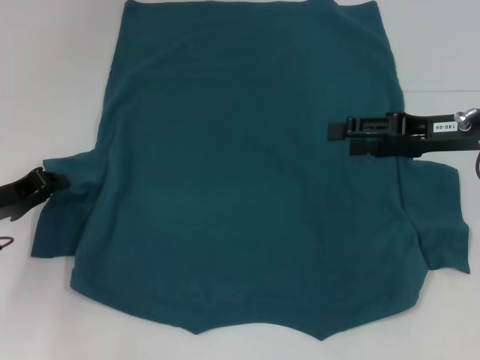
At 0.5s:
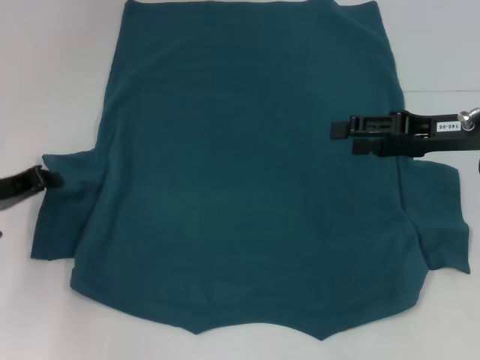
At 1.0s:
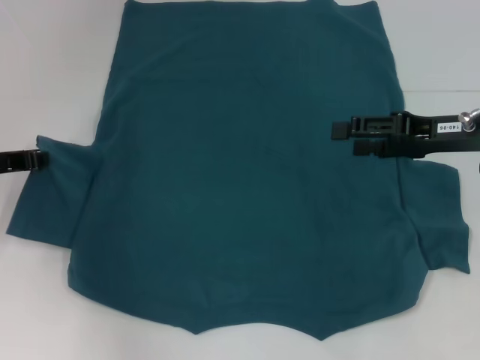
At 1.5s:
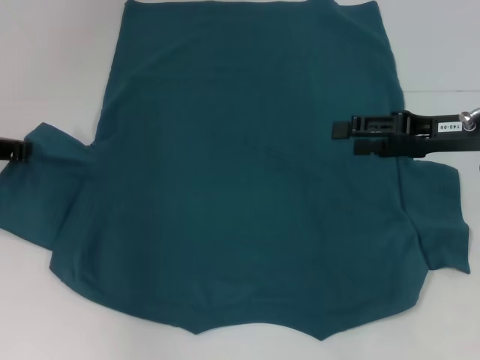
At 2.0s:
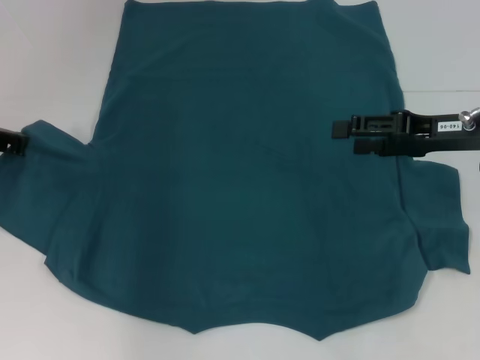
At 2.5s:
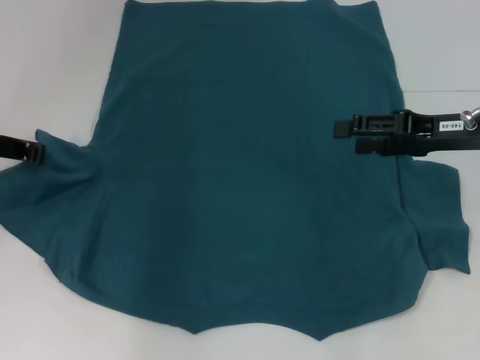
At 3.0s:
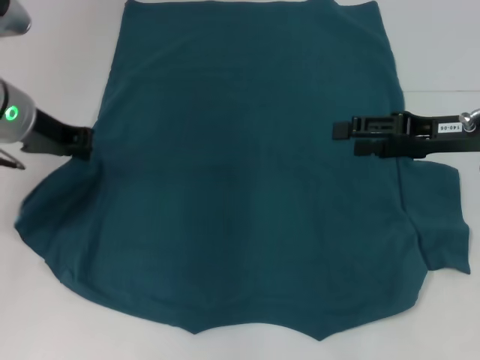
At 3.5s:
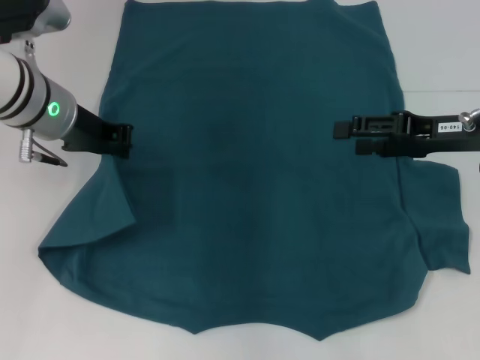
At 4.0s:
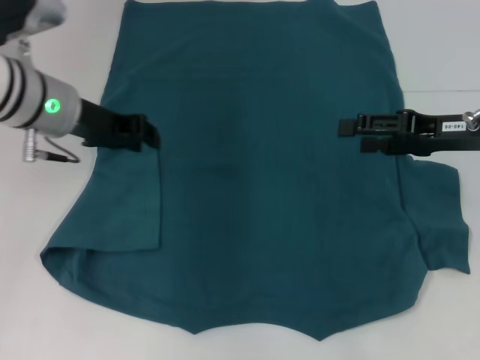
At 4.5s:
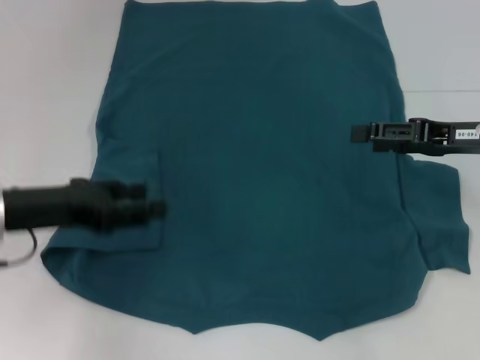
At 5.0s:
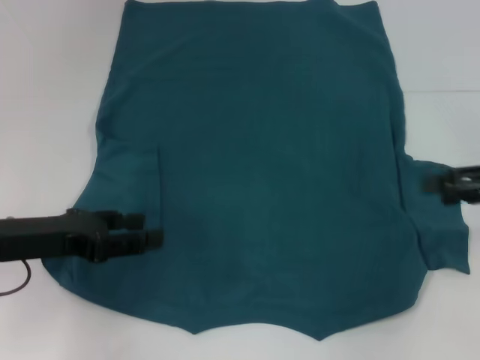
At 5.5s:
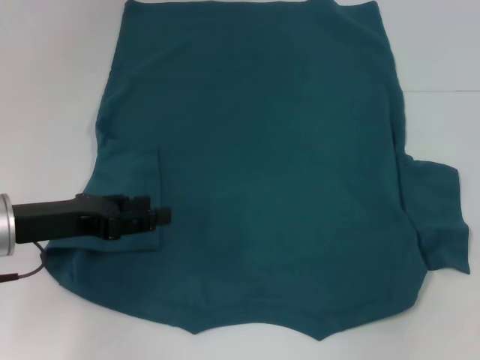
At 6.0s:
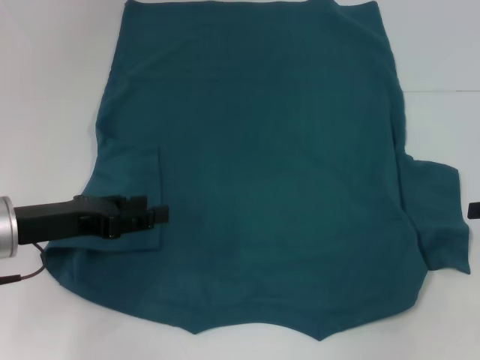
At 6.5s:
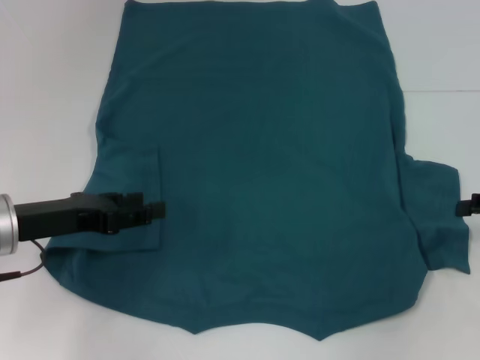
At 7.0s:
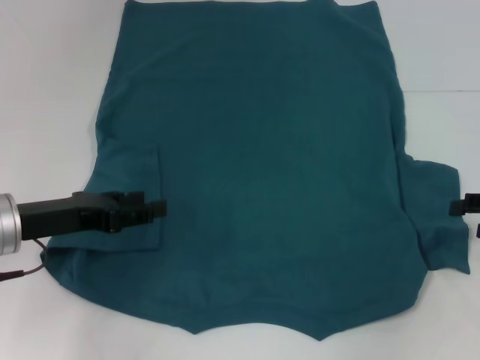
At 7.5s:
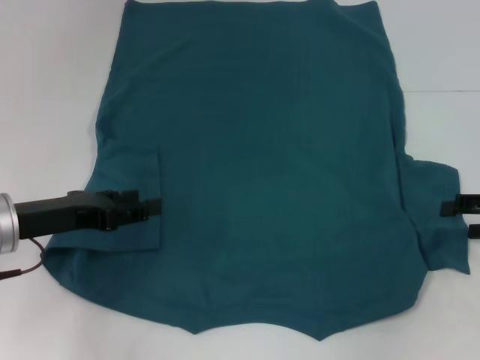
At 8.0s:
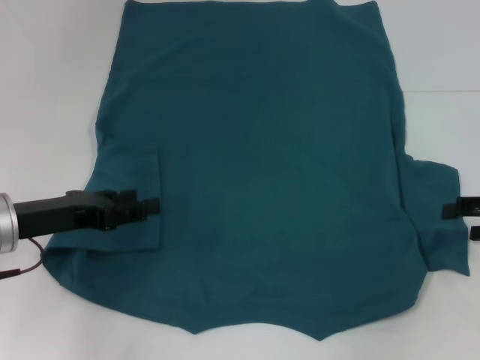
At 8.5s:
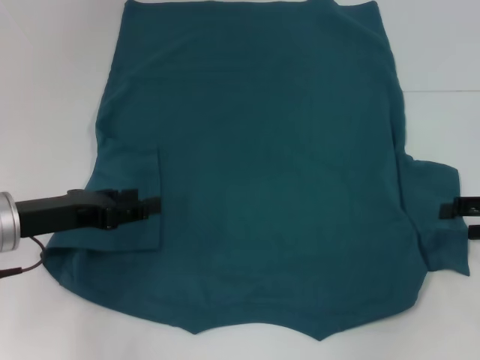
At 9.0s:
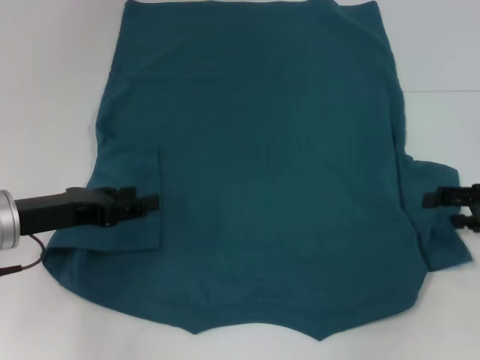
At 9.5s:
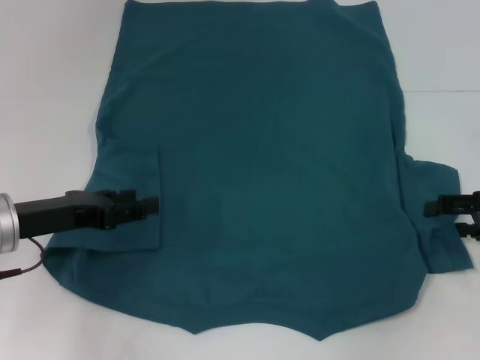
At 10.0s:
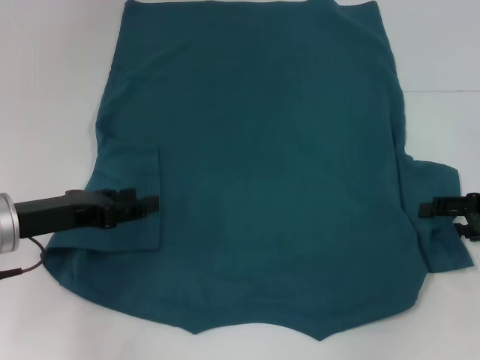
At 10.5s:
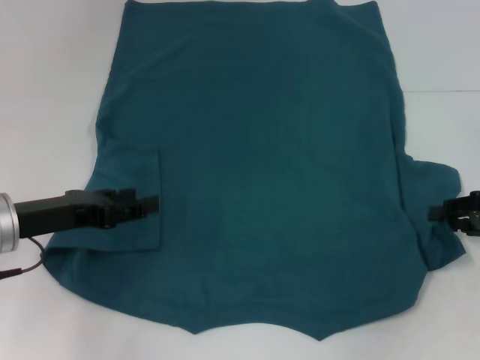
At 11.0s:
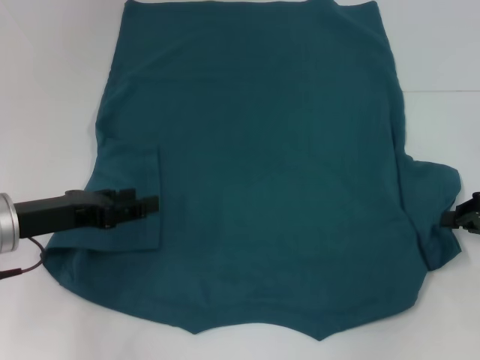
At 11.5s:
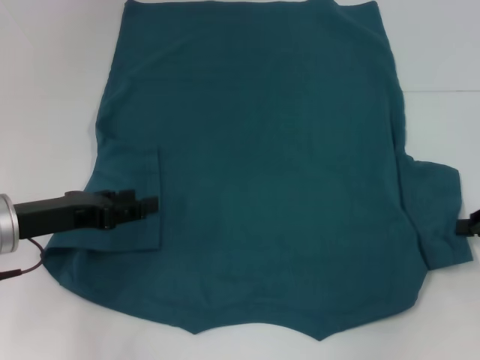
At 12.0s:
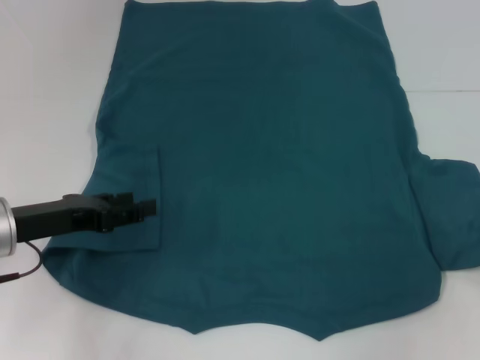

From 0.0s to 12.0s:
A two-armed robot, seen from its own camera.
Step, from 0.0s to 3.5s: Fold the bottom left sleeve with your left hand.
From 0.0s to 2.0s: The left gripper heads upward and forward, covering about 10 cm.
From 2.0s to 4.0s: The left gripper heads to the right, covering about 10 cm.
From 4.0s to 6.0s: The right gripper travels to the right and backward by roughly 15 cm. The left gripper heads backward, downward and to the left, covering about 15 cm, and opens its fingers.
From 6.0s to 10.0s: The grippers move only a little.
From 10.0s to 12.0s: The right gripper shifts some 5 cm to the right, and closes its fingers.

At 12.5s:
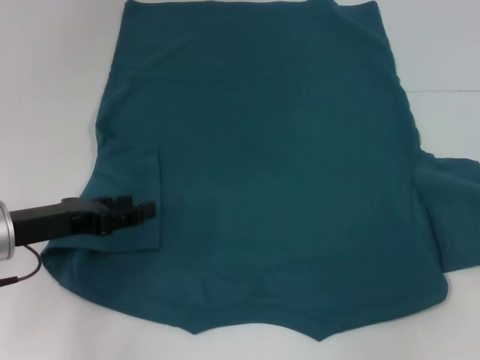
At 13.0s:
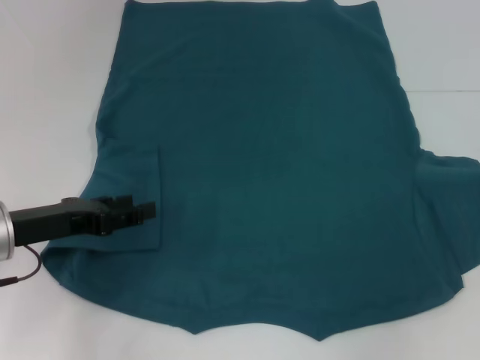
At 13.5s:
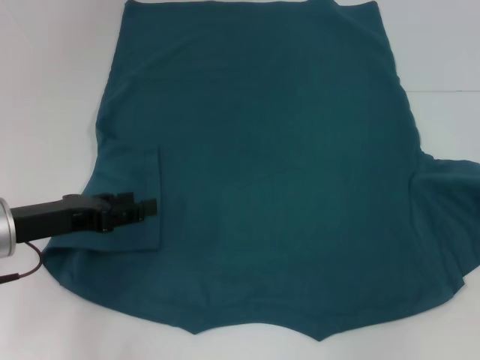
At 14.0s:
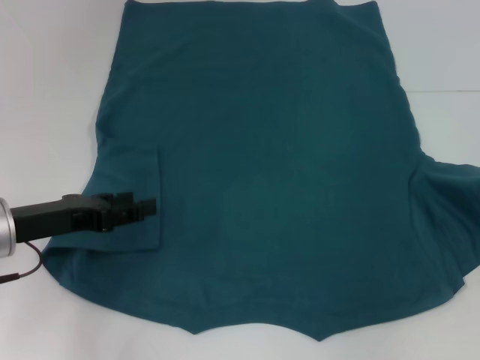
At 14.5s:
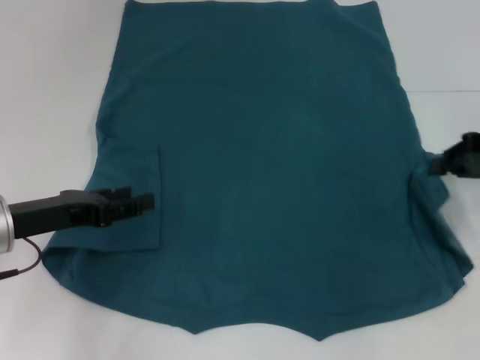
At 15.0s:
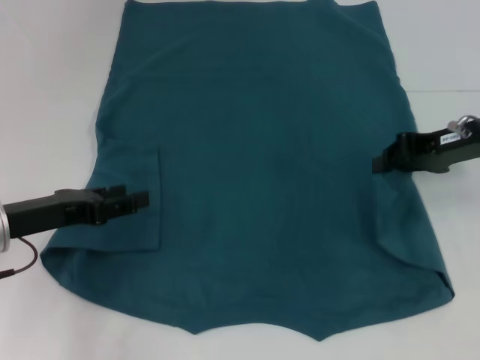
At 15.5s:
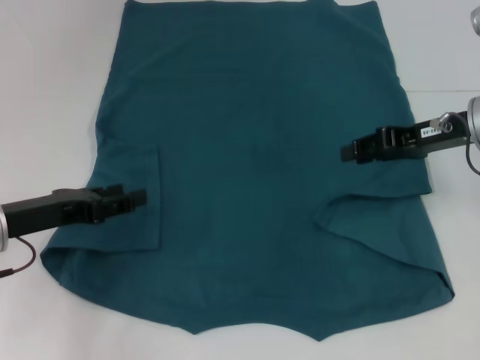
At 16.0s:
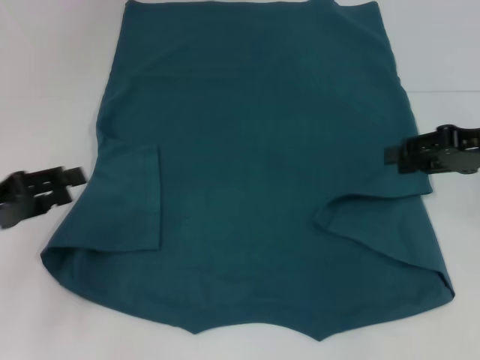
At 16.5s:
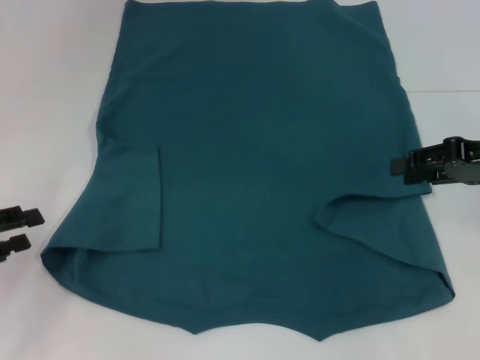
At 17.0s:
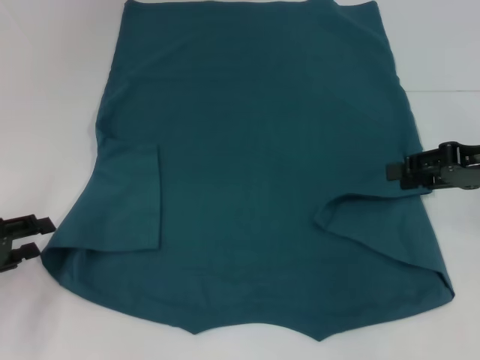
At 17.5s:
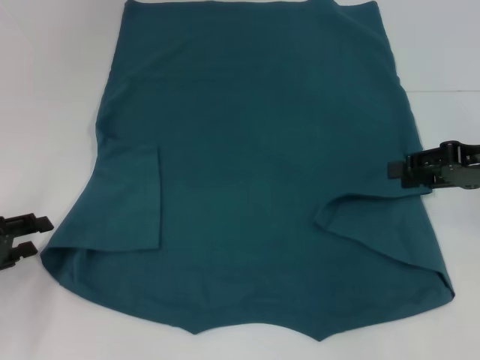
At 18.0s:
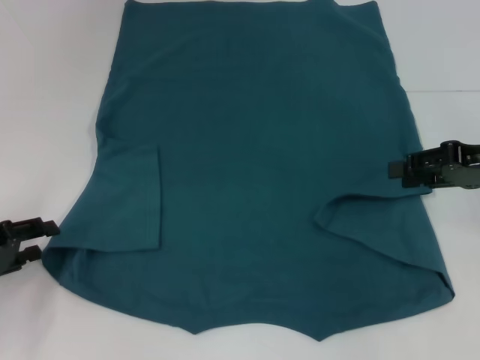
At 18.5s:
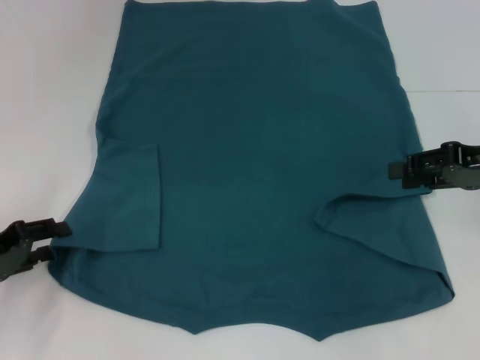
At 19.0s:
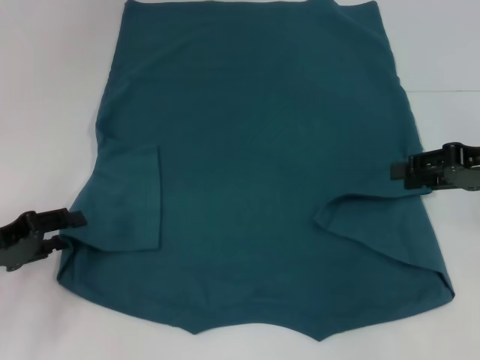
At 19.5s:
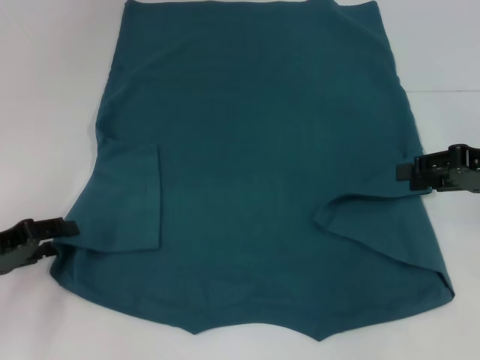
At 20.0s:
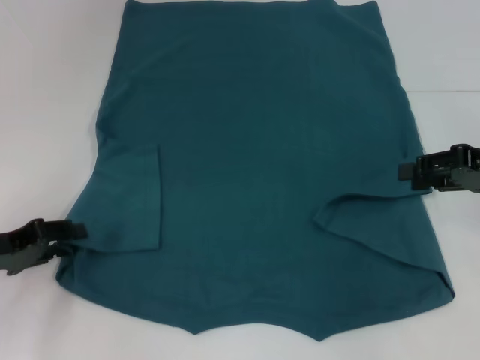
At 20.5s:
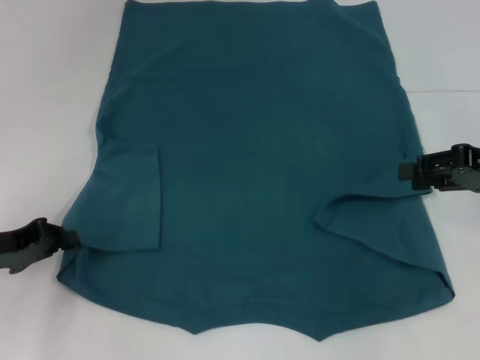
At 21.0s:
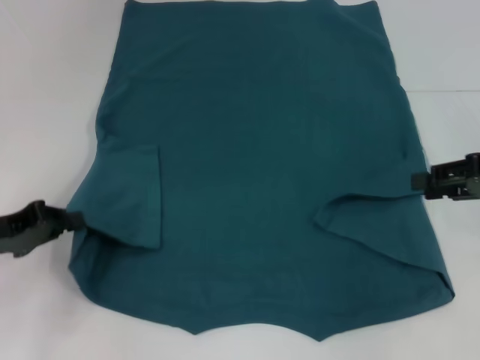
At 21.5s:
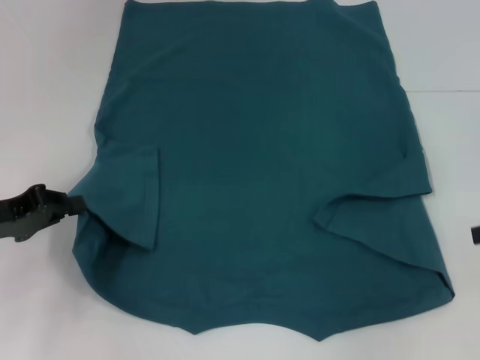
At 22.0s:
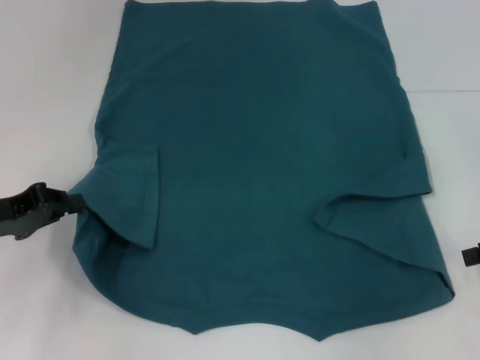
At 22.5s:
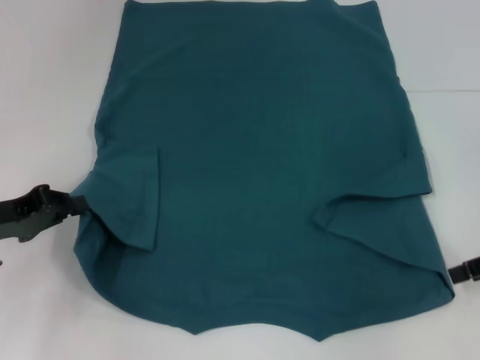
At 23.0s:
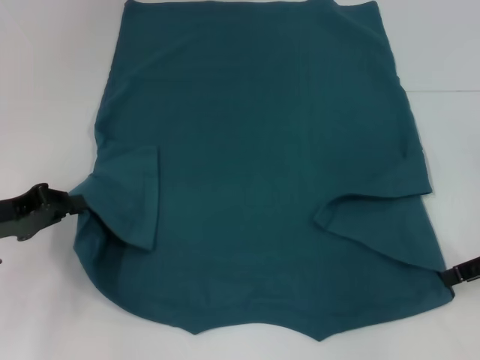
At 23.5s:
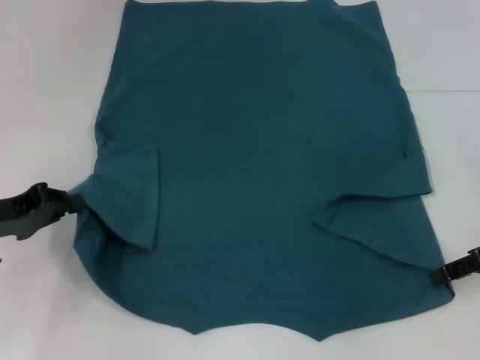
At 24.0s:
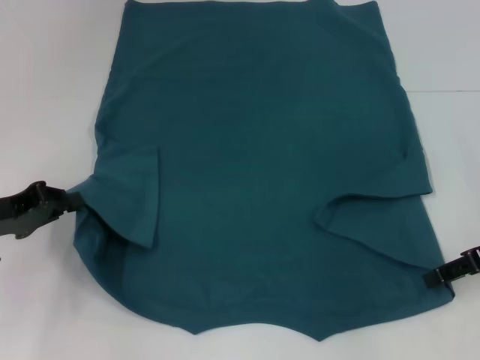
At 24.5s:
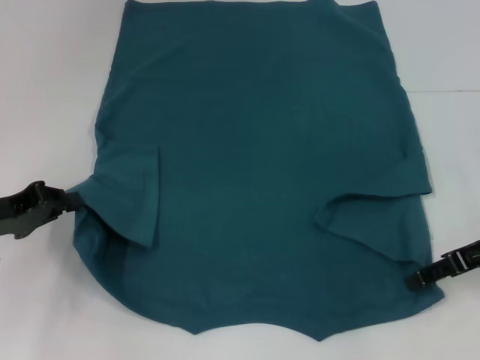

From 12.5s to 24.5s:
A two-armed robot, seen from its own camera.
Step, from 12.5s to 15.5s: Fold the bottom right sleeve to the right.
Step, from 16.0s to 20.5s: Grab the bottom left corner with your left hand.
From 12.5s to 14.5s: The right gripper heads to the left, covering roughly 10 cm.
From 14.5s to 16.5s: The right gripper reaches roughly 10 cm to the left, then returns, and opens its fingers. Meanwhile the left gripper travels to the left and backward by approximately 10 cm.
From 16.5s to 18.5s: The left gripper changes place by roughly 5 cm.
From 18.5s to 20.5s: The left gripper closes.
From 20.5s to 22.5s: The right gripper moves some 5 cm.
From 22.5s to 24.5s: The right gripper moves to the left, approximately 5 cm.

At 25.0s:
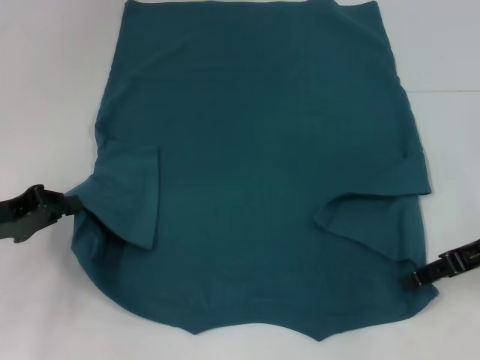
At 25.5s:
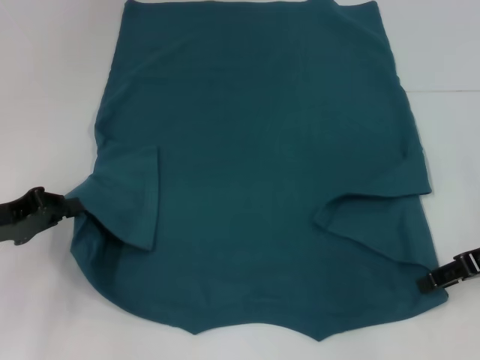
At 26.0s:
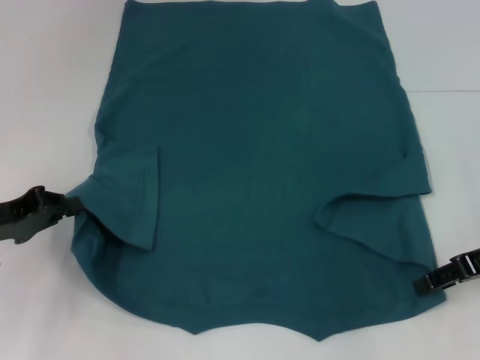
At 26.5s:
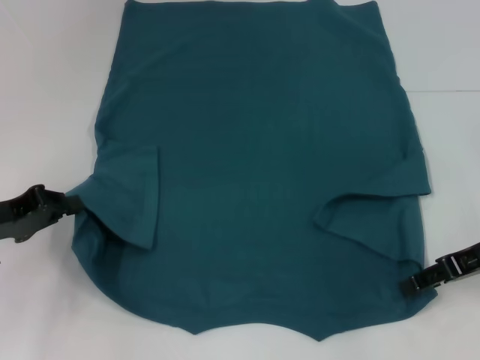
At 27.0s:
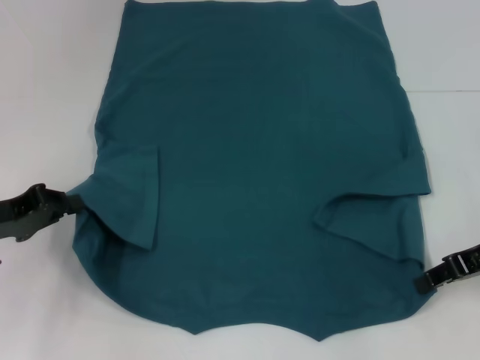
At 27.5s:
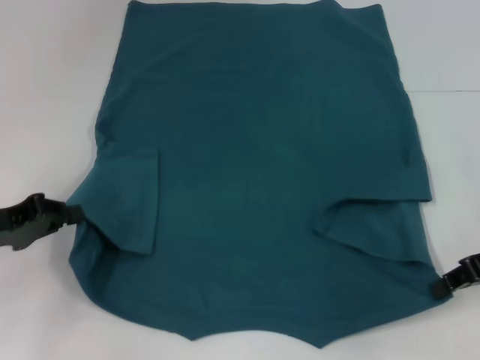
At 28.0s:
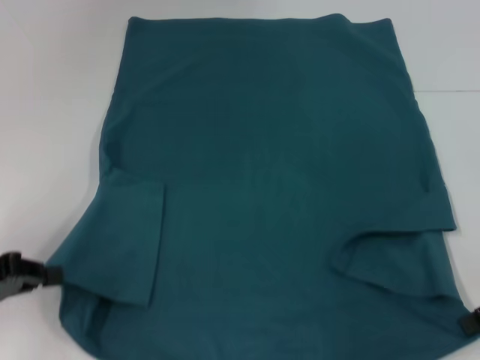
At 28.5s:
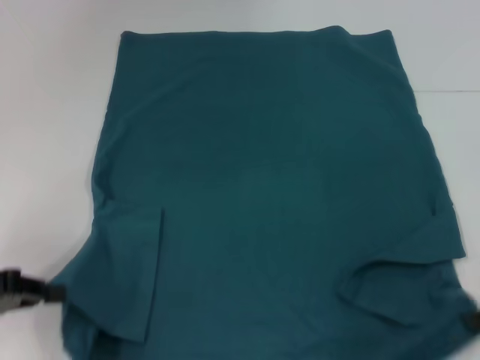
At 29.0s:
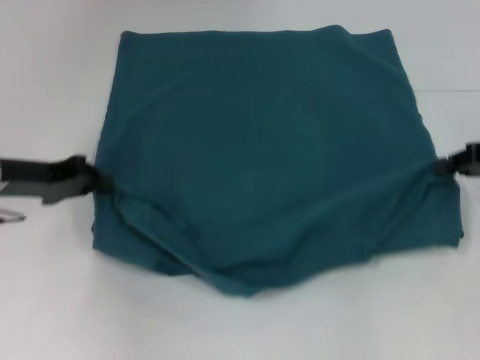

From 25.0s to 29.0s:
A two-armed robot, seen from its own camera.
Step, from 25.0s to 27.0s: Grab the bottom right corner with your right hand.
From 25.0s to 27.0s: The grippers stay close to where they were, moving slightly.
From 27.0s to 29.0s: The right gripper ends up some 5 cm from where it was; the left gripper goes roughly 5 cm forward.
